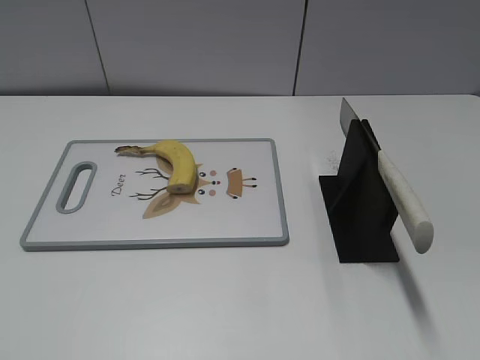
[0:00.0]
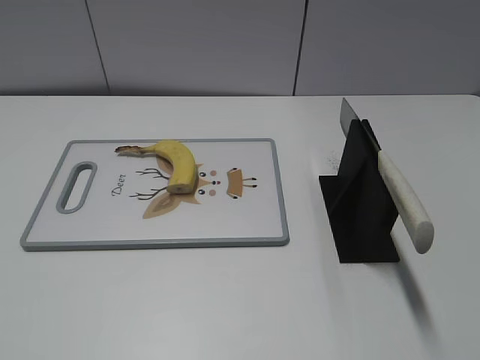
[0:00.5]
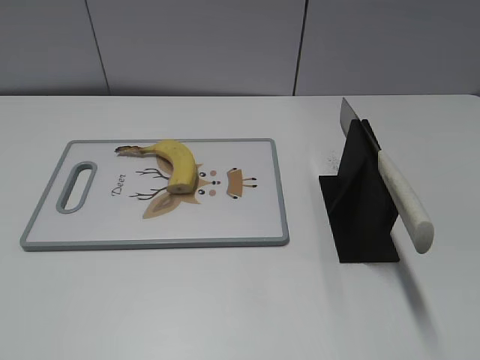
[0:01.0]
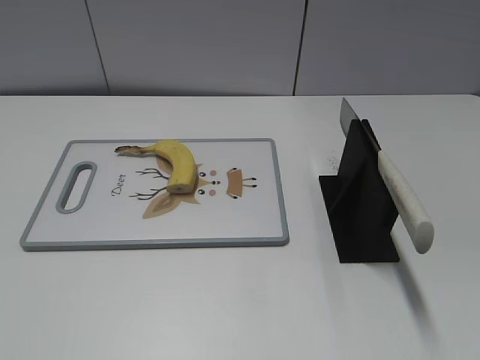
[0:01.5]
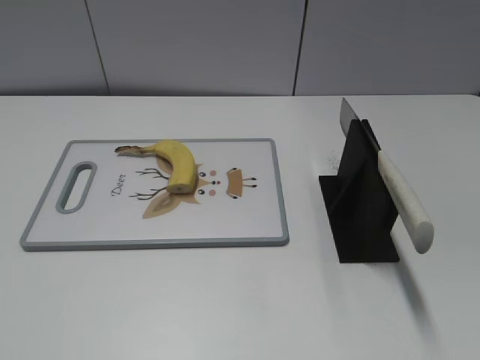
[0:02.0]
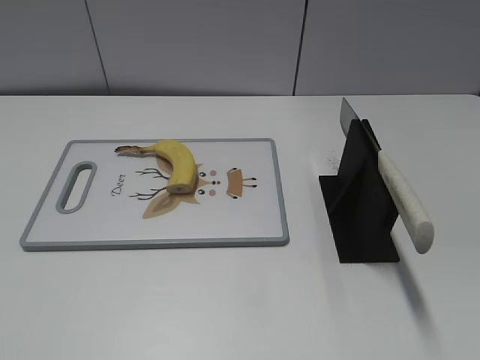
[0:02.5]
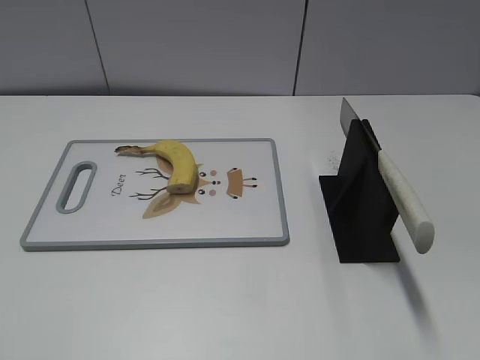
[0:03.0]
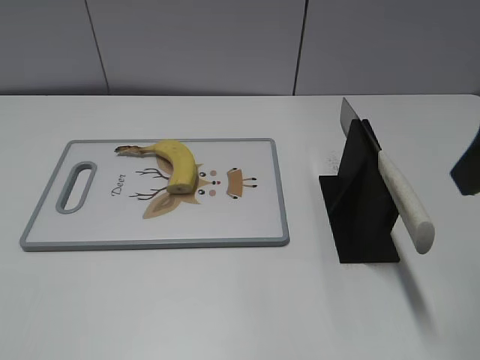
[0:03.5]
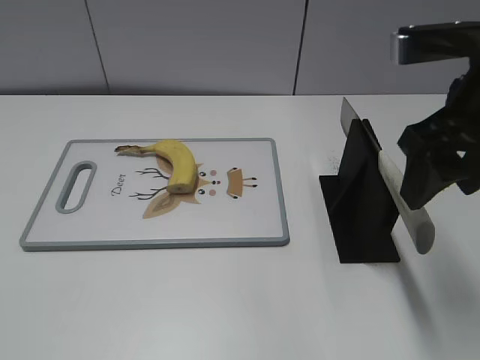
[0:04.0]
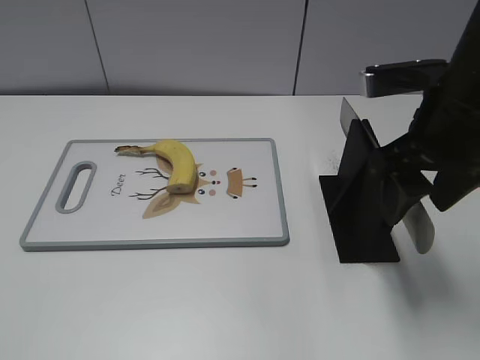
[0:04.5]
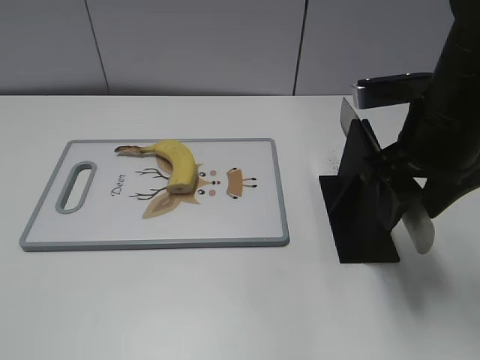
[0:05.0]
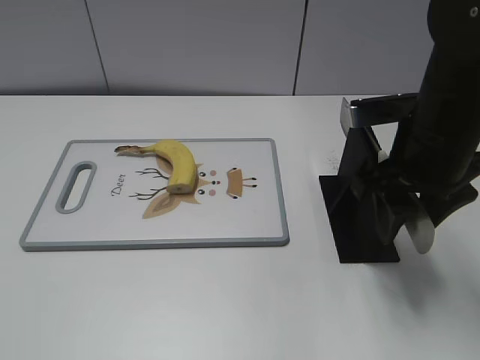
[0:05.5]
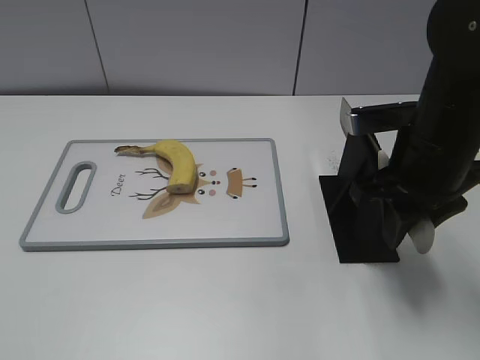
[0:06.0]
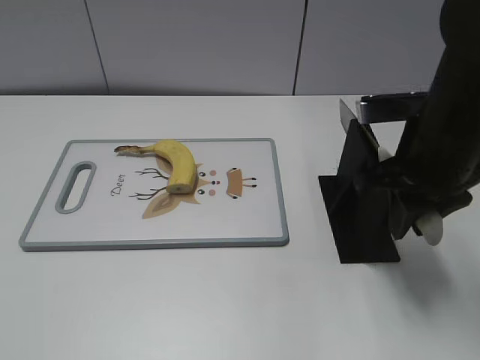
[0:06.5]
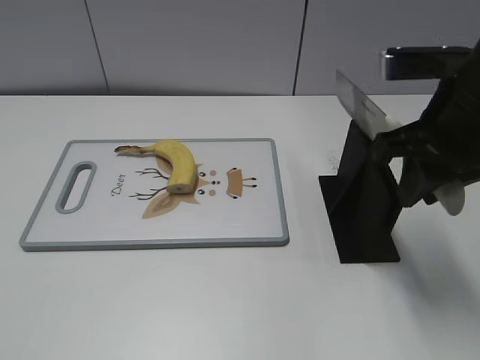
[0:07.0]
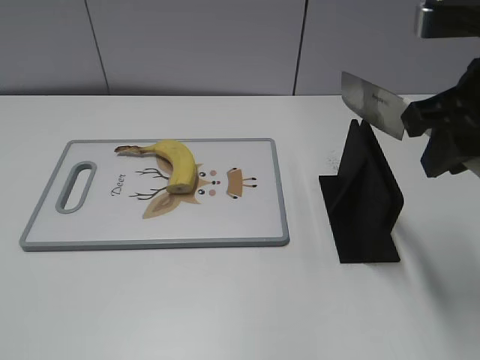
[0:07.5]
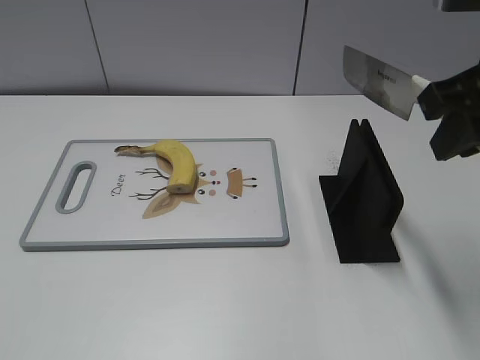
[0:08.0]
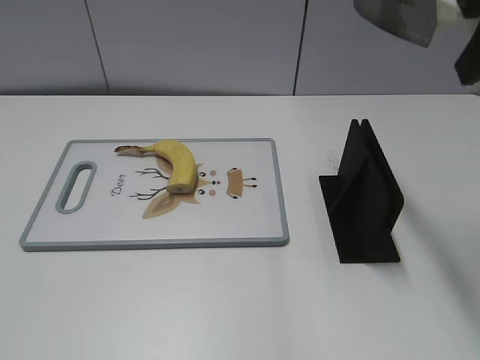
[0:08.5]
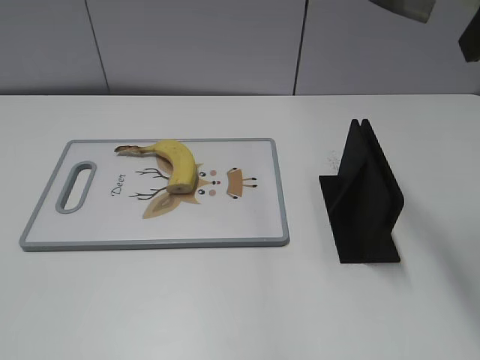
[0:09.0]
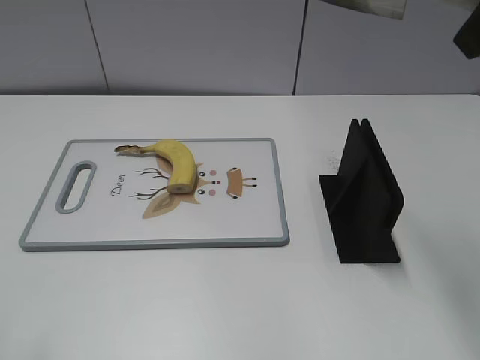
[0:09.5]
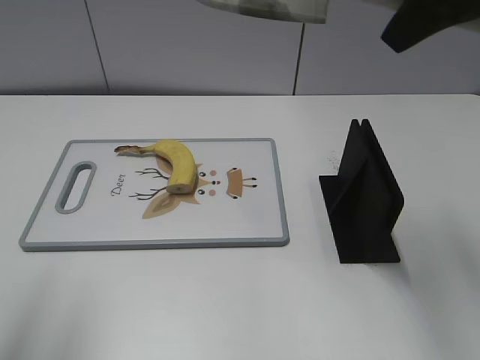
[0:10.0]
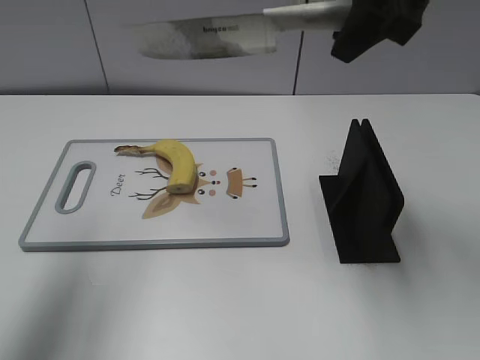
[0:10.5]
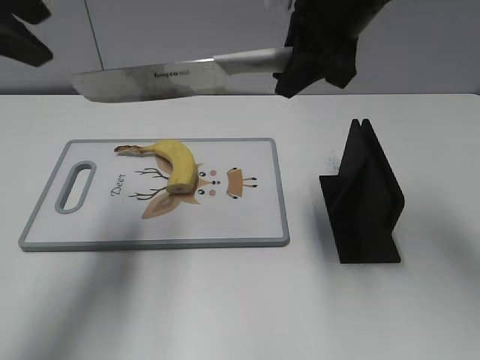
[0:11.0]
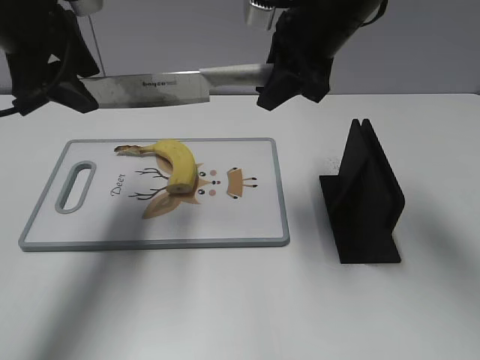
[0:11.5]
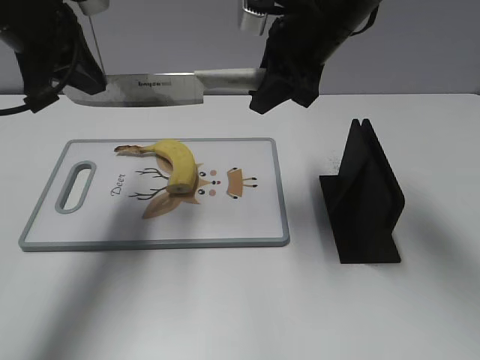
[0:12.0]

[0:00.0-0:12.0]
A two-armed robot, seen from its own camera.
Task of the whole recording: cut banana.
Step, 0:00.0 to 0:07.0: Grab the knife handle with your right hand.
0:02.0 to 0:04.0: The right gripper shifts about 25 cm forward and to the left.
0:04.0 to 0:06.0: The right gripper shifts roughly 10 cm downward, and closes up.
0:06.0 to 0:08.0: The right gripper goes some 10 cm upward.
0:08.0 to 0:10.0: The right gripper travels upward by roughly 10 cm; the left gripper moves forward and upward, roughly 20 cm.
0:10.0 to 0:12.0: The left gripper moves forward, downward and to the right, roughly 25 cm, and closes its fingers. The right gripper goes approximately 20 cm downward, forward and to the left.

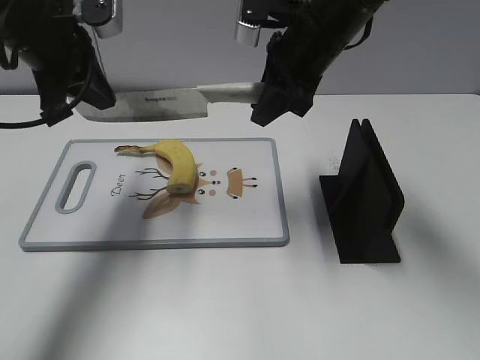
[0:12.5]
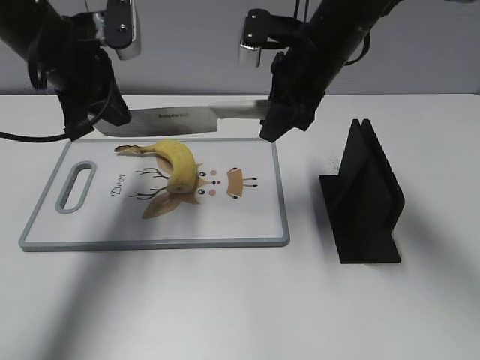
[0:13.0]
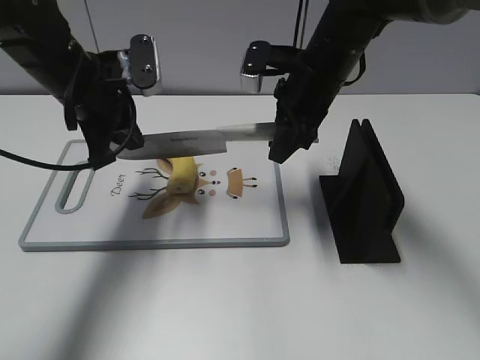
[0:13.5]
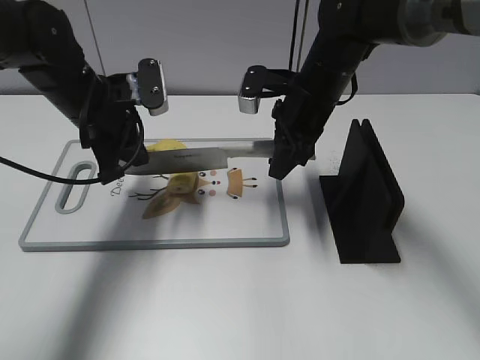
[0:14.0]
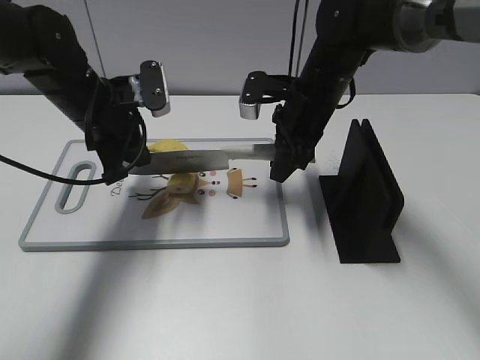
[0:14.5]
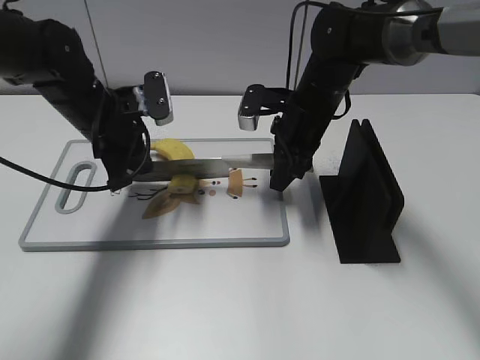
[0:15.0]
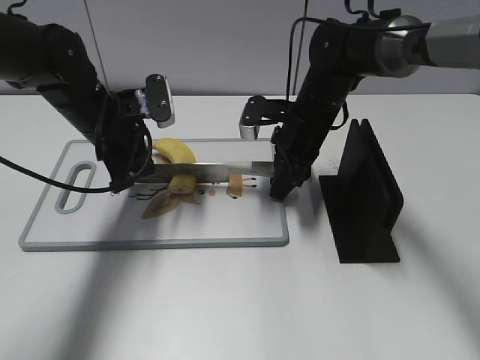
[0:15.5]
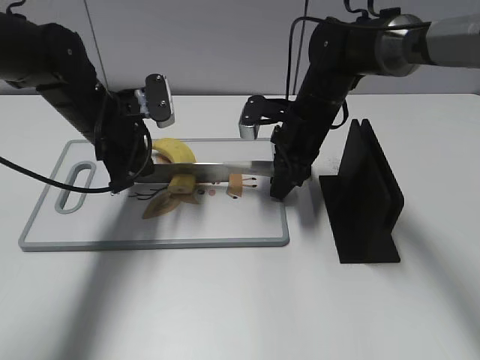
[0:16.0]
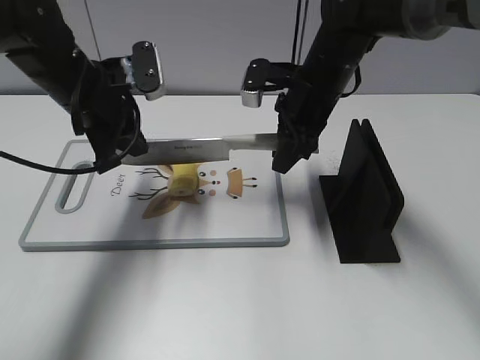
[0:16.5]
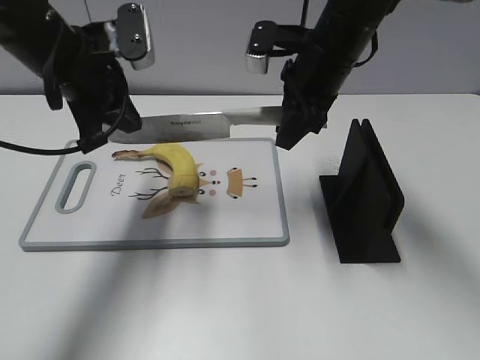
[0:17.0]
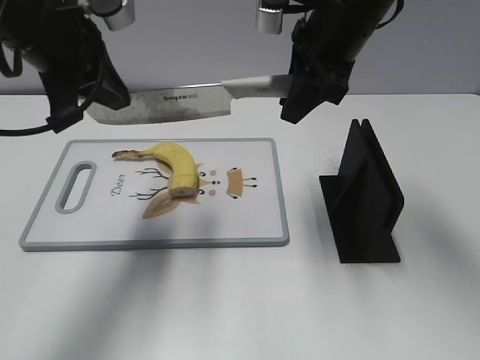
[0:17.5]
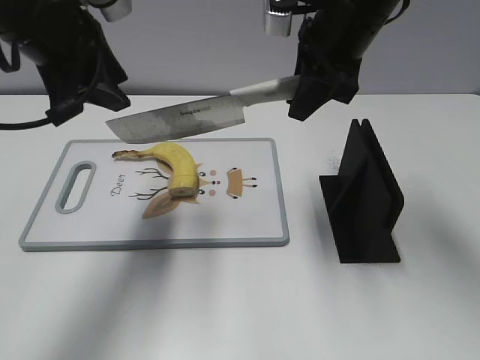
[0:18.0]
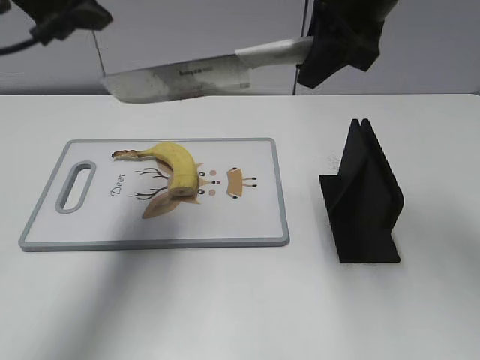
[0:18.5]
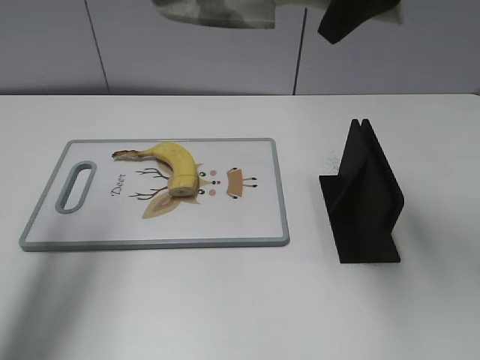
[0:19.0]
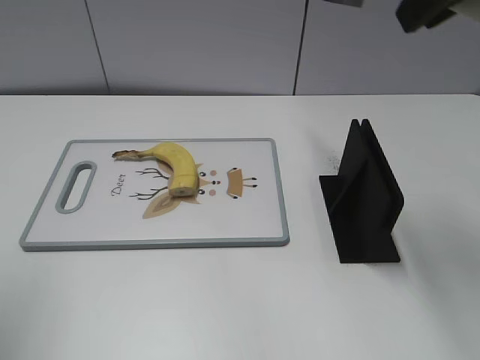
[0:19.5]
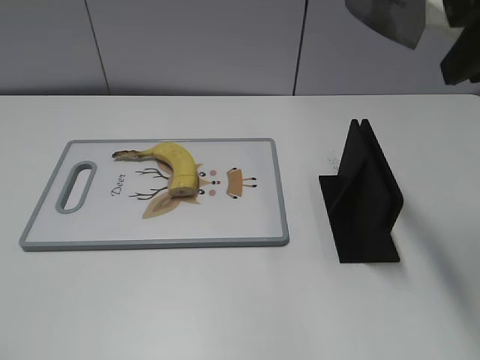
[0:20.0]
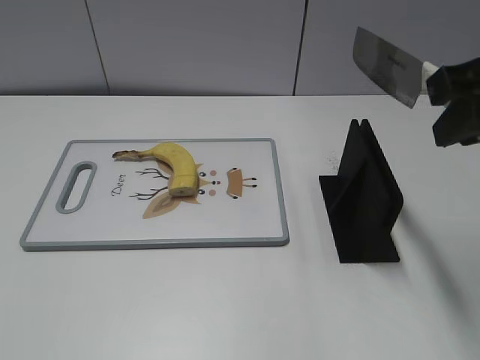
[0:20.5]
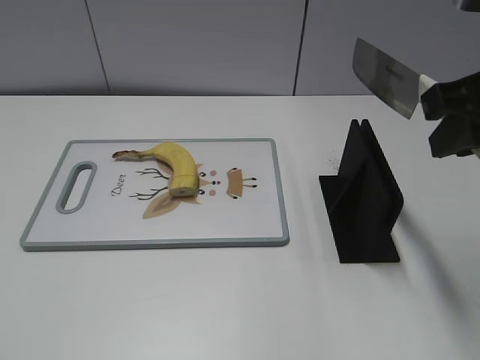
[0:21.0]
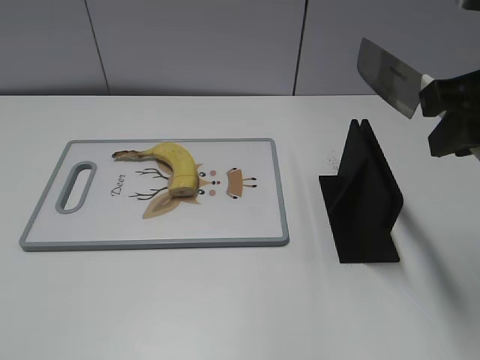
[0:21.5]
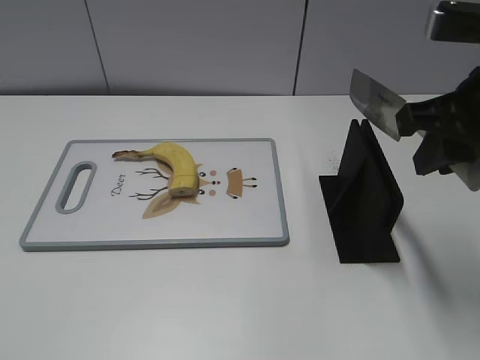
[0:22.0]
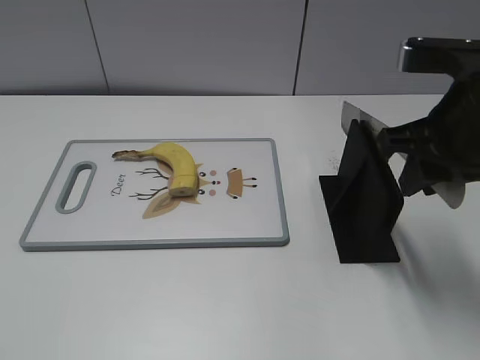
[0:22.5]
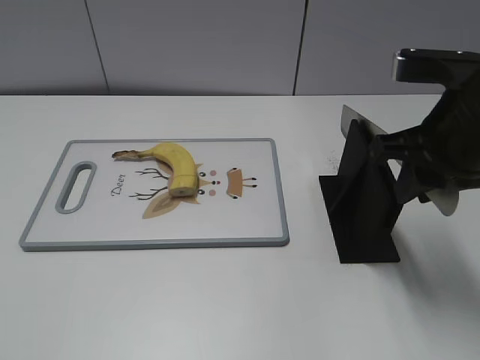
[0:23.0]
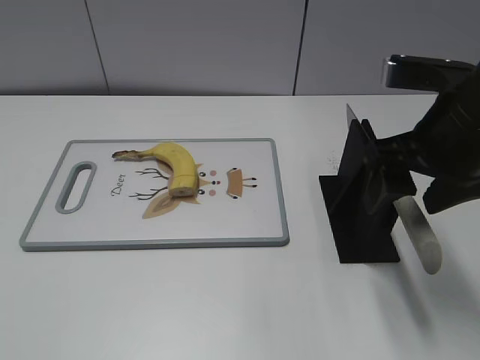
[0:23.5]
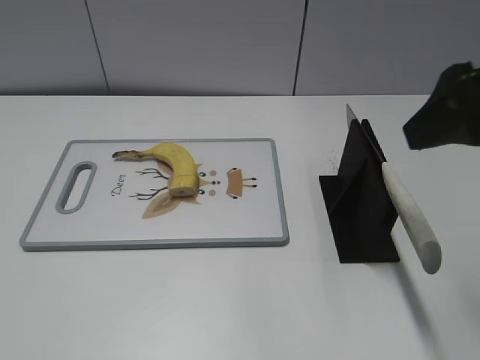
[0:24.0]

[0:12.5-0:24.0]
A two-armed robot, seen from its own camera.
Task of the whole recording: cut banana.
Step, 0:12.5 to 0:15.0: Lift the knife with your right hand.
Step, 0:15.5 to 0:20.0: Cut the banana with your right hand.
Step, 0:20.5 to 0:21.5: Lift the knife with your right hand.
0:12.5 to 0:14.5: The grippers both shift downward by some 10 cm.
0:14.5 to 0:16.5: The grippers move only a little.
0:16.5 to 0:18.5: The grippers both shift upward by some 15 cm. The left gripper opens up.
0:18.5 to 0:20.0: The right gripper heads backward and to the right, covering roughly 15 cm. The left gripper heads backward and to the left, covering some 30 cm.
0:20.0 to 0:22.0: The right gripper goes about 10 cm downward.
0:22.0 to 0:24.0: The right gripper changes place by about 5 cm, and opens.

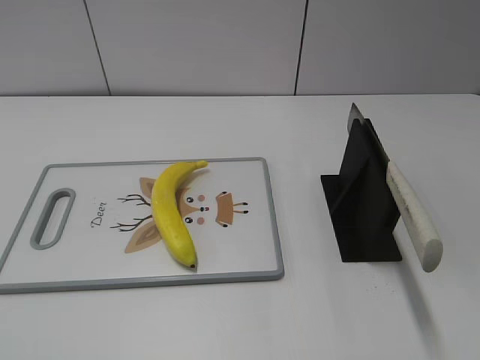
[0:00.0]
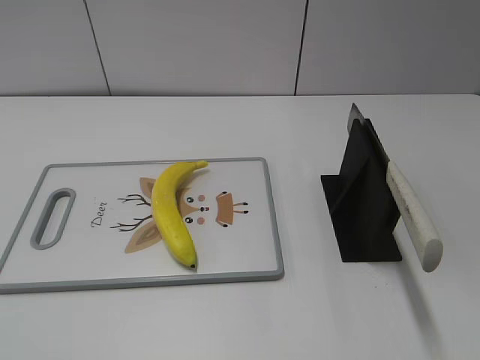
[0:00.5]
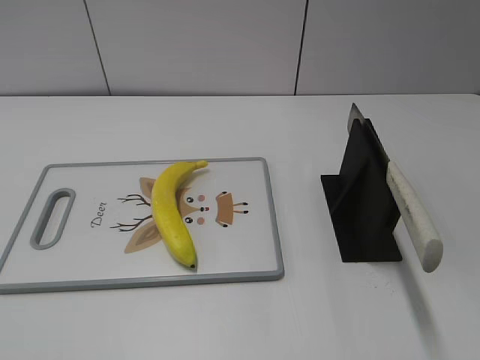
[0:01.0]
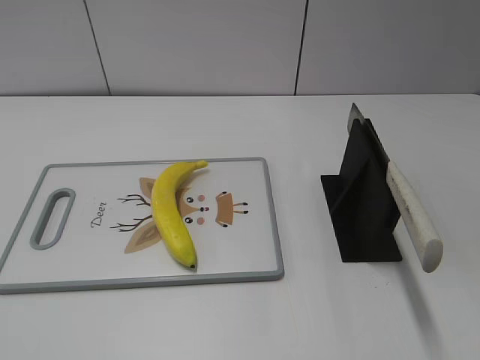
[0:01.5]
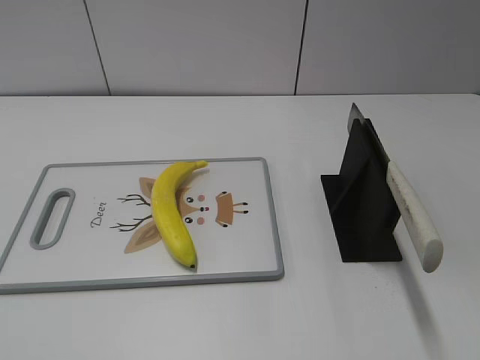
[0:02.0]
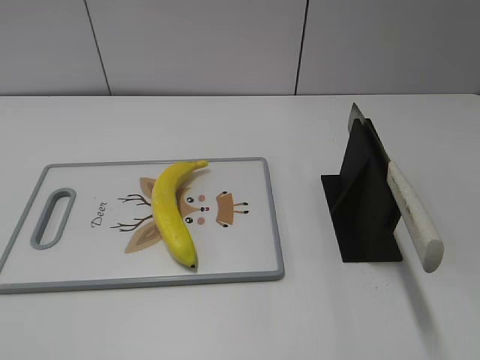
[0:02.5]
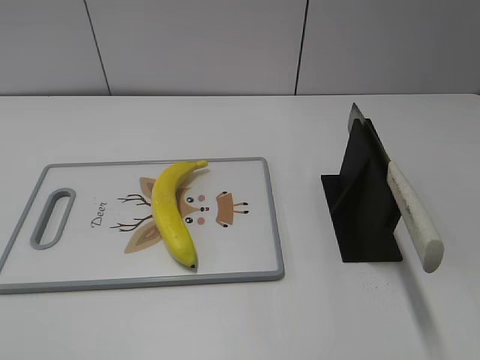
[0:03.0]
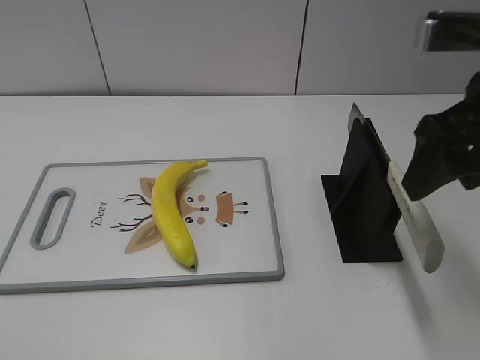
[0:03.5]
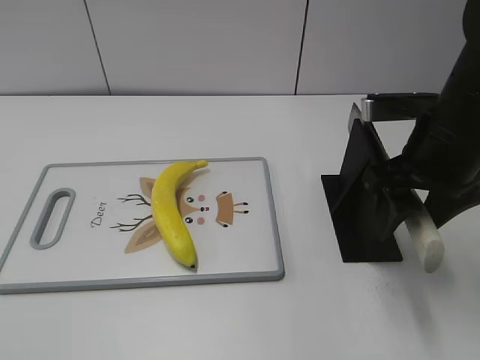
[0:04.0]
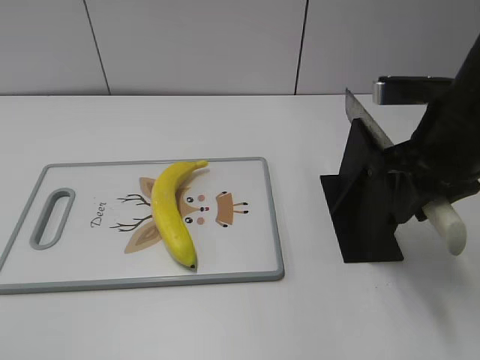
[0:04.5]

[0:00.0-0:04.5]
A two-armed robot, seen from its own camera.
Task of the whole recording: cut plastic banana.
0:02.0 to 0:04.5: The right gripper heads forward, covering some 25 cm, and closes.
